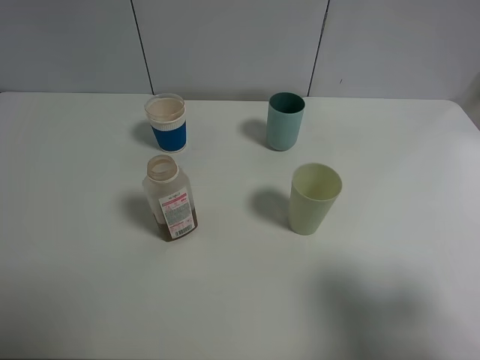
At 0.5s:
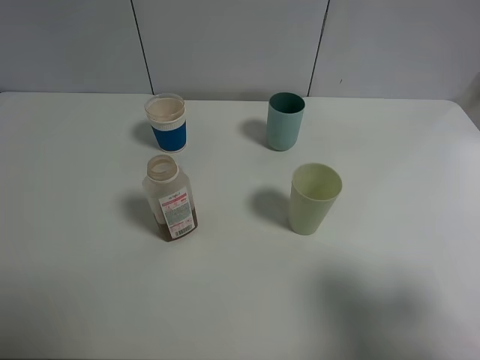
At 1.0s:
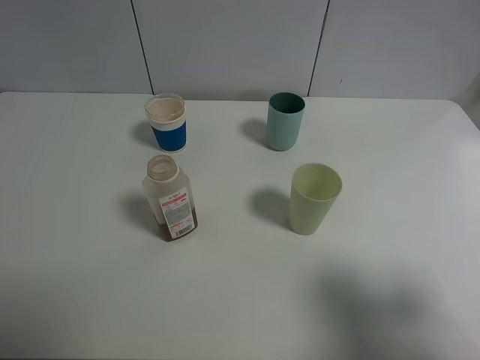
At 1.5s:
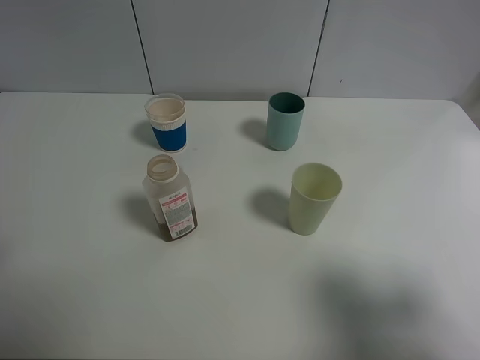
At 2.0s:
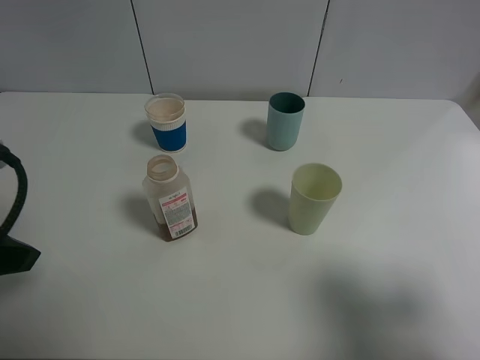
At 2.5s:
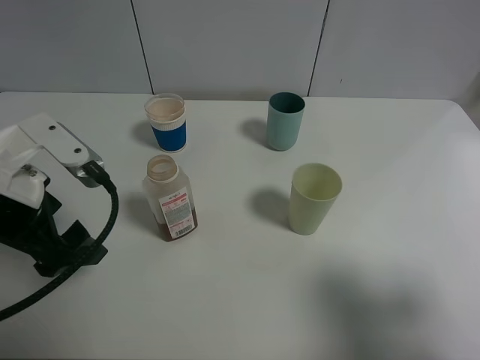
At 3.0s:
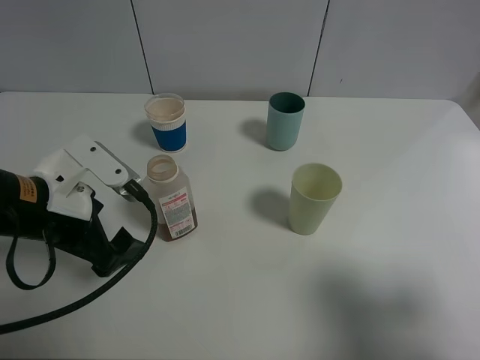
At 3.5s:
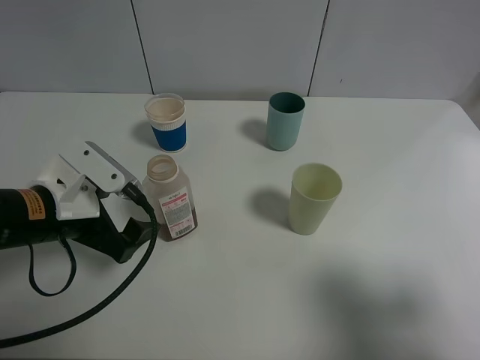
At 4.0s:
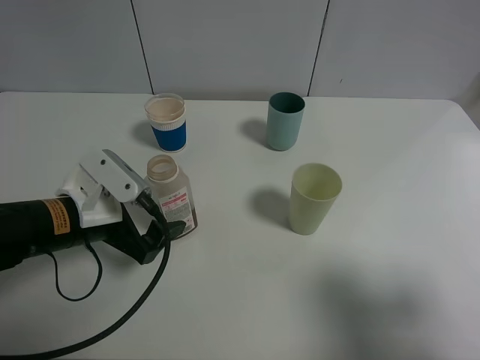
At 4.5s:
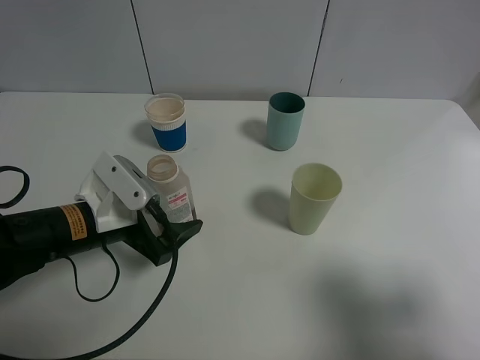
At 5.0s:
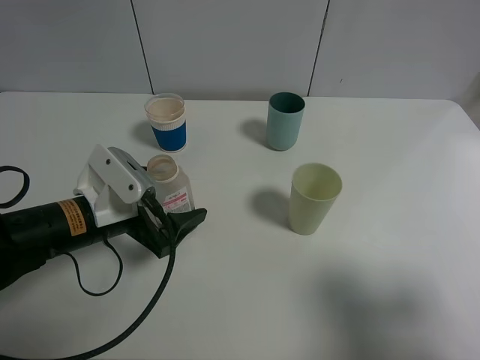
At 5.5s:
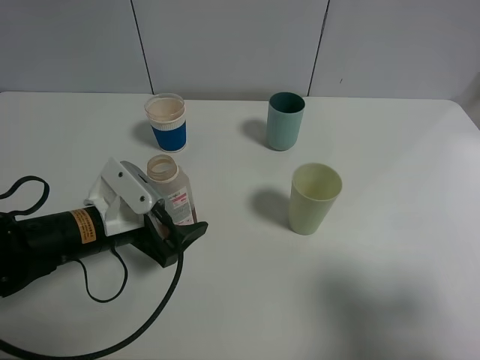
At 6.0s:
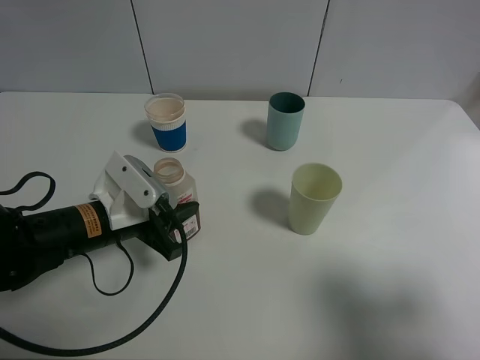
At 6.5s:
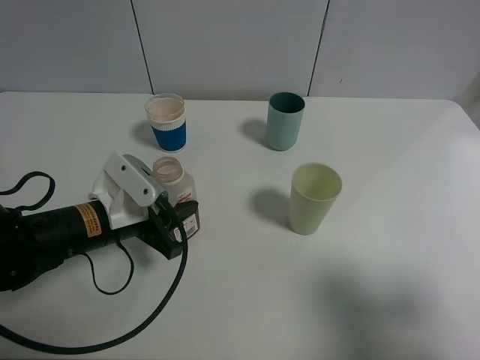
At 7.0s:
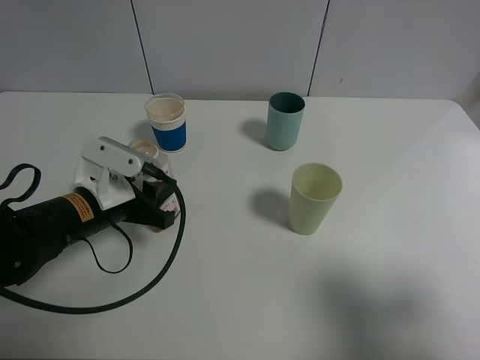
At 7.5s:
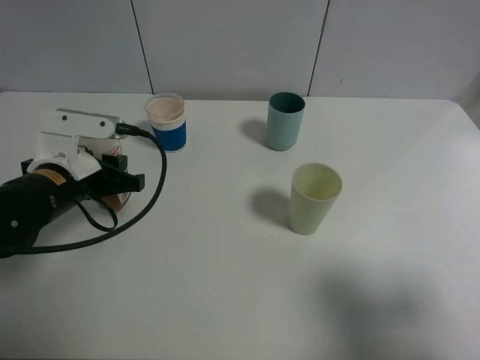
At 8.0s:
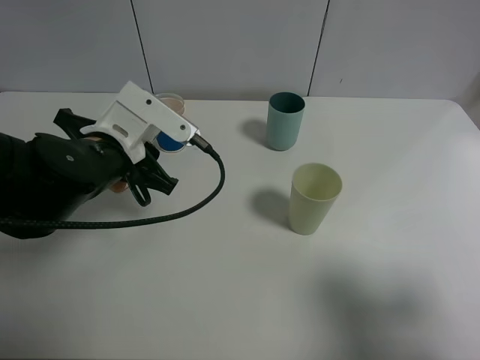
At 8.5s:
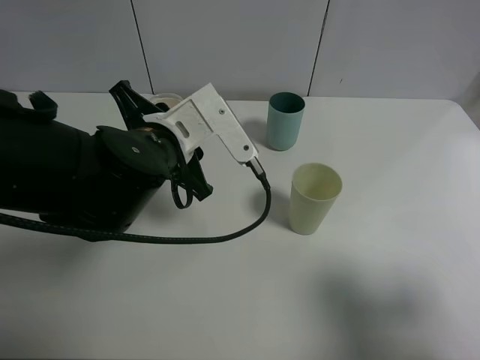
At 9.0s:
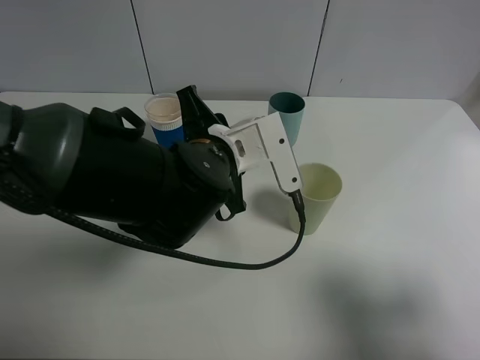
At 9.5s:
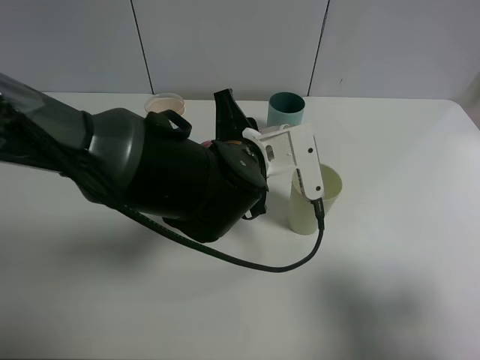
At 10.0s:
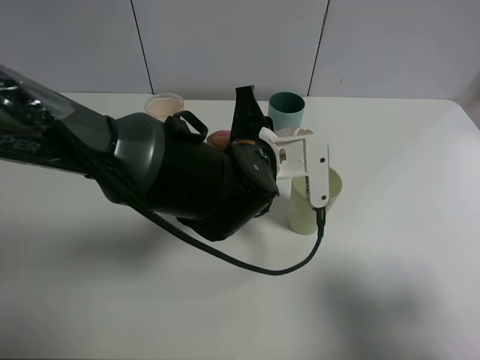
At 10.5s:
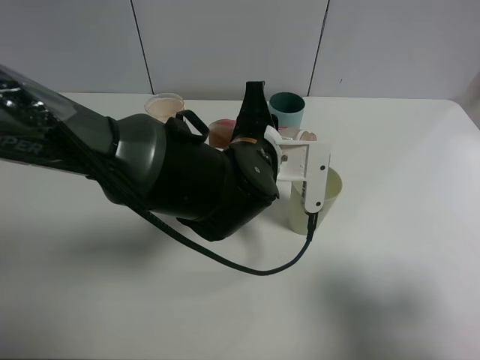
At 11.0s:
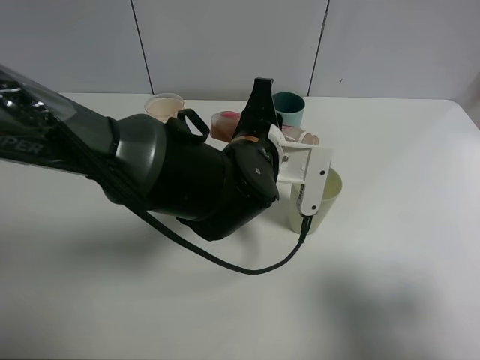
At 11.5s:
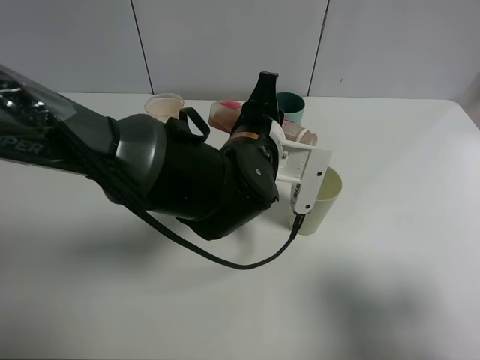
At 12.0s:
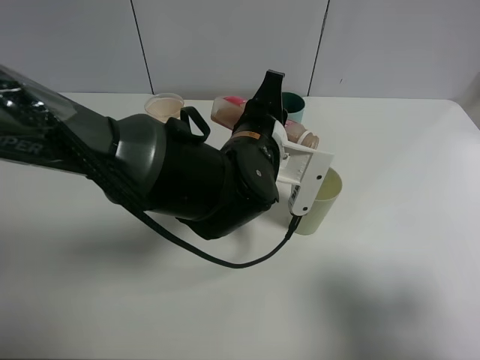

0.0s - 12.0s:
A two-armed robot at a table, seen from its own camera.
Task of the whole recording: use a clamp to hold the bottle of the drink, pour the beverage into a random cup, then clamp the cup containing the drink and pour the drink into another random cup.
Step, 0.0s - 7.5s: Pick up the drink bottle with left gripper.
0.0s - 2.0s: The left gripper heads forward, covering some 10 cm.
2.0s - 4.0s: The left gripper is displaced downward, to the right and forward by roughly 15 cm.
4.0s - 6.0s: The left gripper closes its fingers.
6.0s - 8.0s: The left gripper moves upward, approximately 5 cm.
8.0s - 10.0s: The left gripper heads to the right, covering about 15 cm.

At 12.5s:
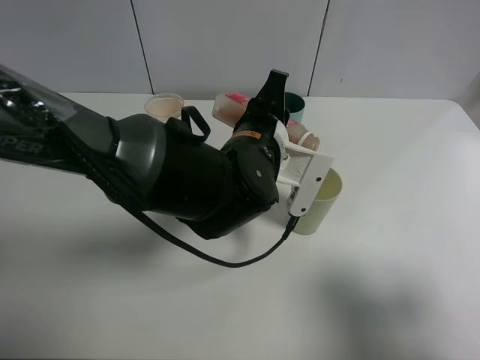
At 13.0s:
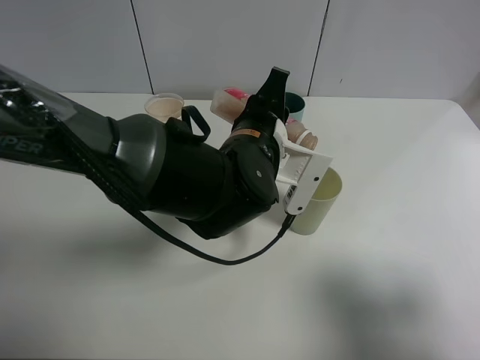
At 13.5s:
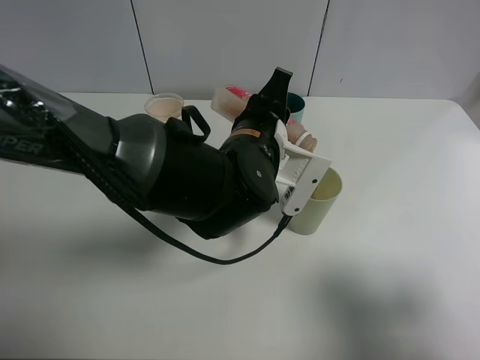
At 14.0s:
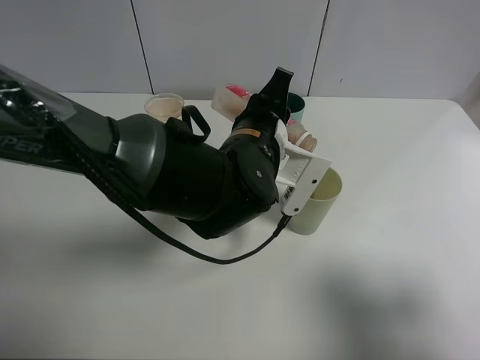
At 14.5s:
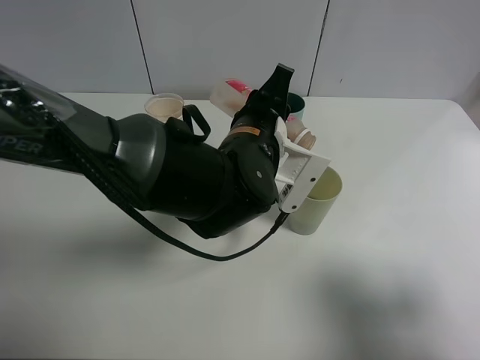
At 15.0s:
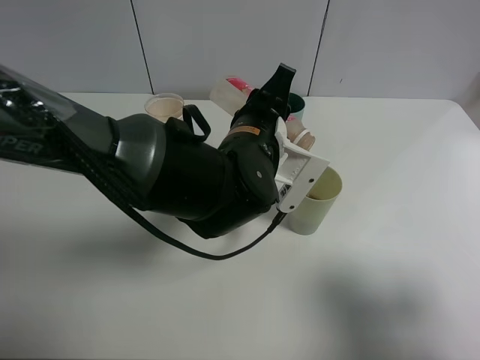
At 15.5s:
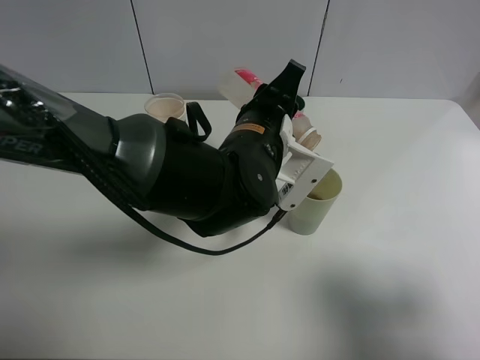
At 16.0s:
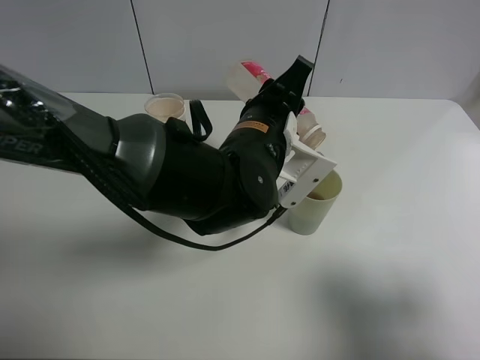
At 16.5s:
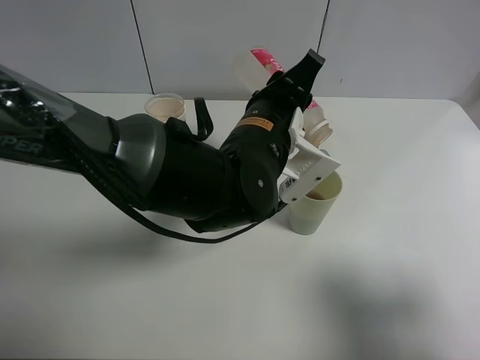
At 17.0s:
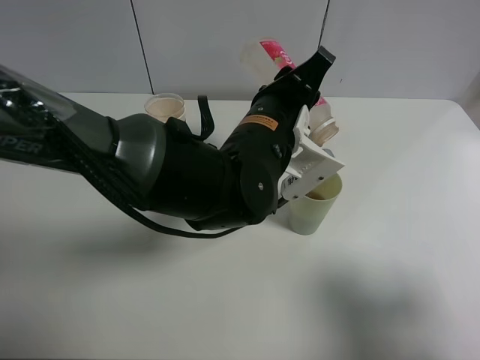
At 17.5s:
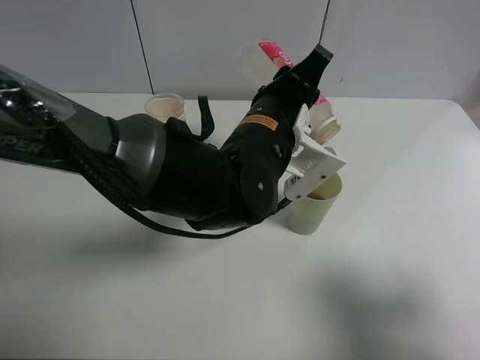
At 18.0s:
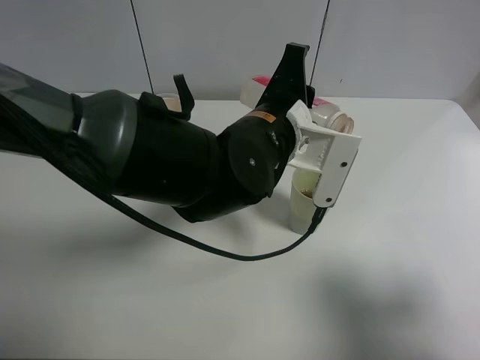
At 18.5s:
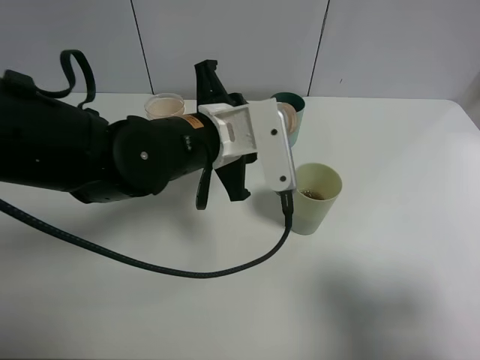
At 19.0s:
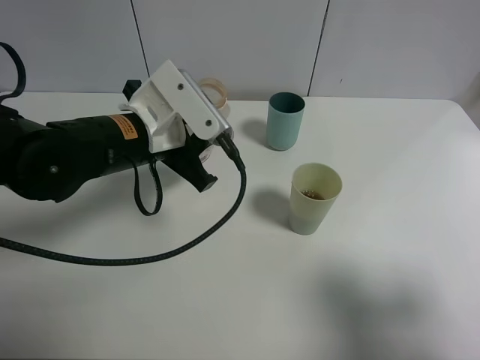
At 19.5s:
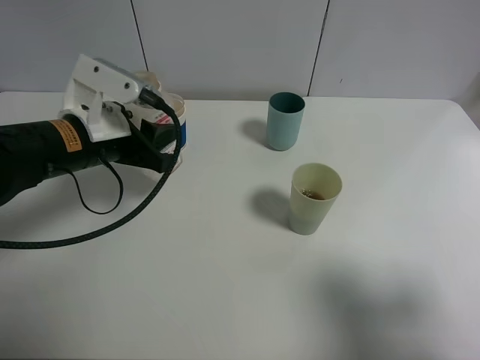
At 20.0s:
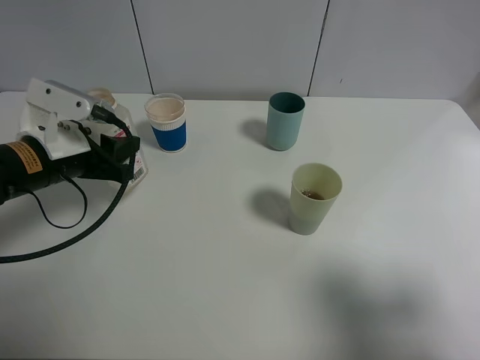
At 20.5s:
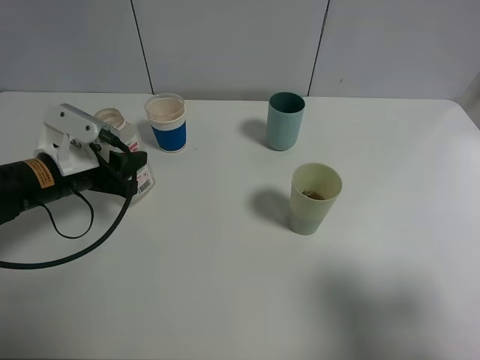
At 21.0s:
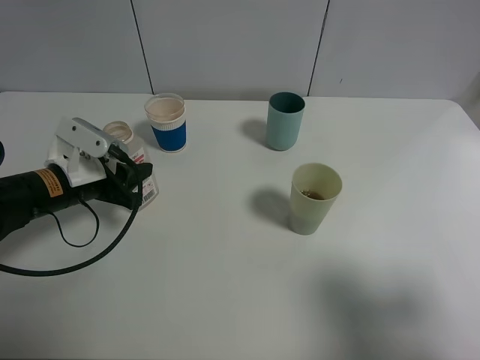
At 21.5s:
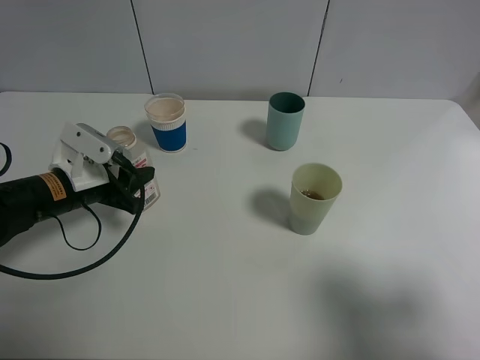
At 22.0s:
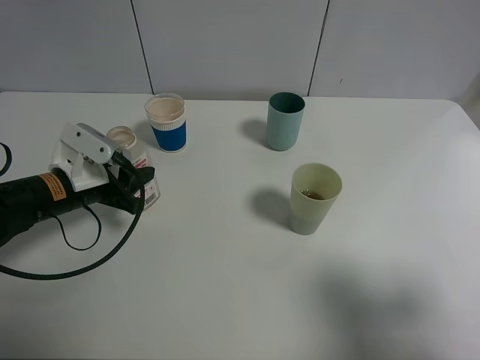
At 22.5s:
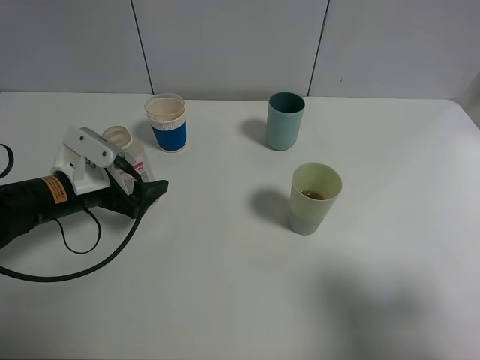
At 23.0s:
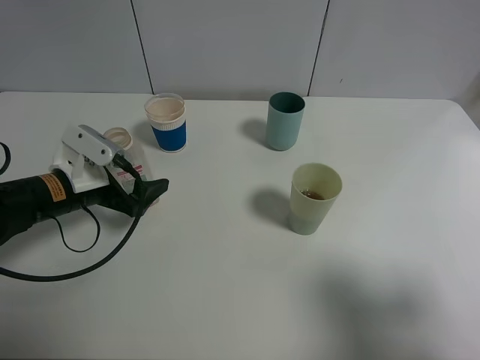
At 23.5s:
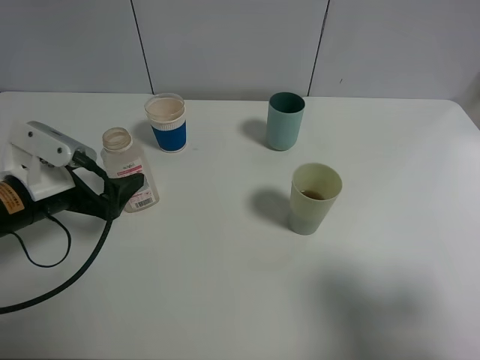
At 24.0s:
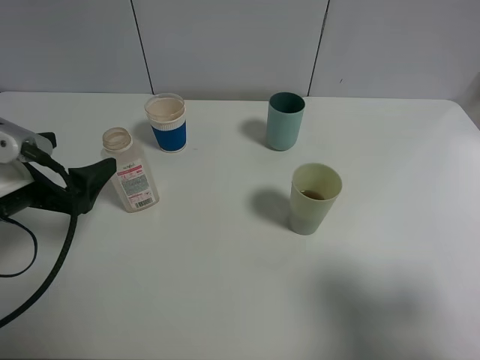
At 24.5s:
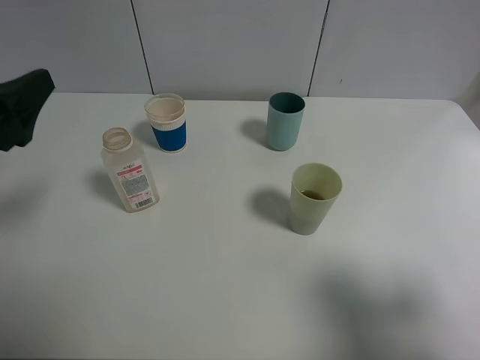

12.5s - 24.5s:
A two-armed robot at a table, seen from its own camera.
Task of the whole recording: use a clamp to hold the bottle of the drink, pour the beverage into a random cup, then clamp the cup containing the drink and pour the drink into another random cup.
Step, 12.5s - 17.5s: Pour the drink into the green plastic cup with left gripper.
Step, 18.0s - 22.0s: Place the drink bottle on the table with left gripper.
12.5s - 14.5s: The grippers make only small movements.
14.5s - 16.5s: The grippers make only small movements.
16.5s - 18.5s: The left gripper heads to the left, covering about 5 cm.
18.5s - 20.5s: The left gripper heads to the left, covering roughly 20 cm.
20.5s - 22.5s: The left gripper opens.
22.5s - 24.5s: The left gripper moves upward and backward, some 20 cm.

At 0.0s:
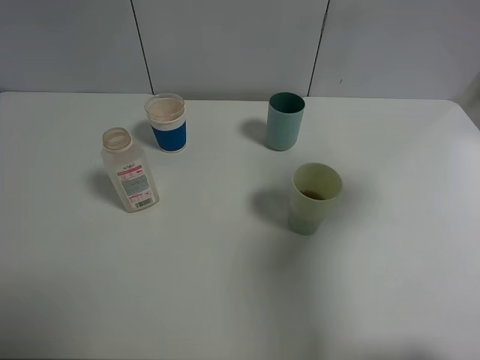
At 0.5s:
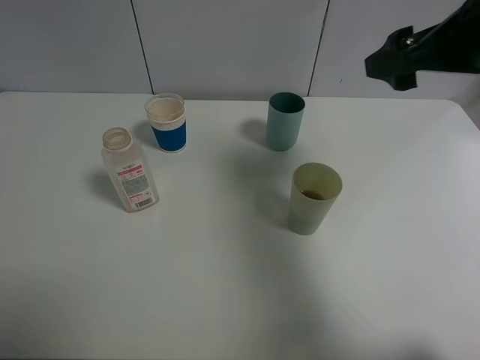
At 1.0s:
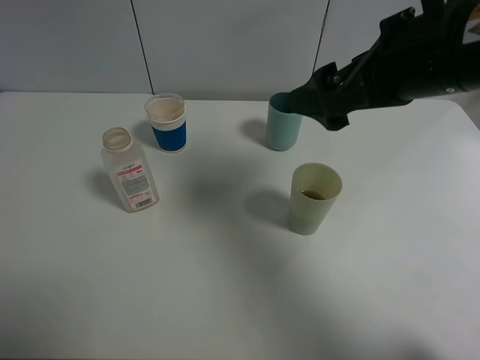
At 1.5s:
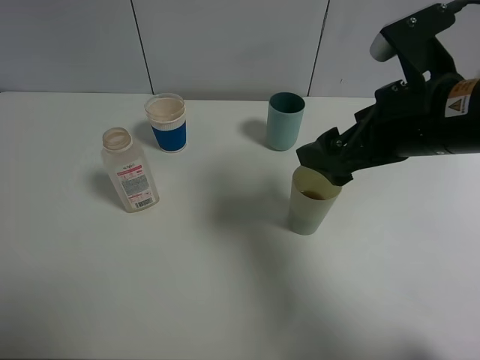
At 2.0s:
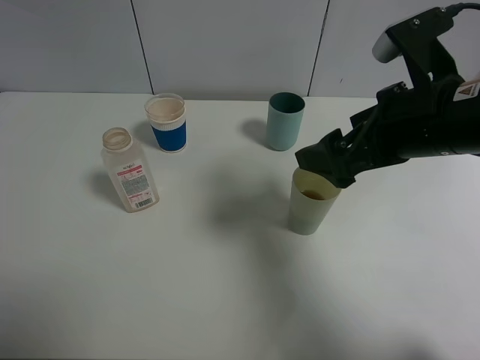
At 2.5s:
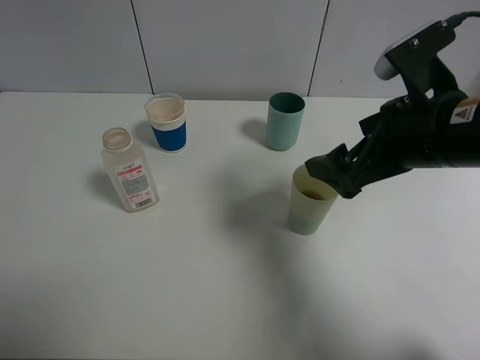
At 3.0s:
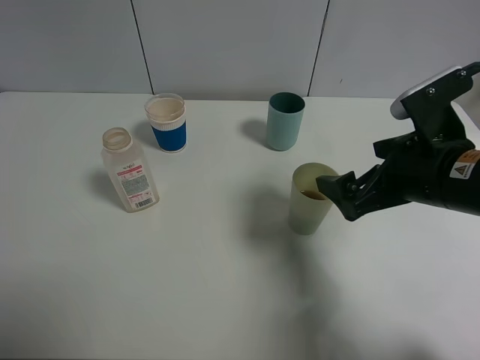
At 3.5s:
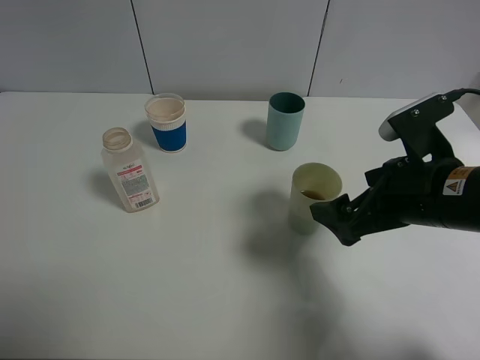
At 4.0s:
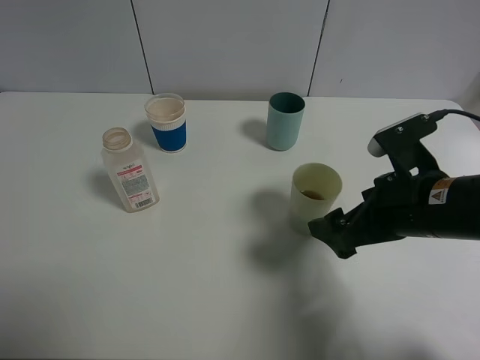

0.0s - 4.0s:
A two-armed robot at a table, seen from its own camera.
Task of the whole recording: use a clamp to hold the bottle of the drink, pour the beverage into a random cup, then clamp the cup containing the drink and pour the drink into another random cup.
0.0s - 2.0s: The right gripper moves to the left and downward, roughly 15 cm.
2.0s - 4.0s: The right gripper heads downward, covering about 10 cm.
